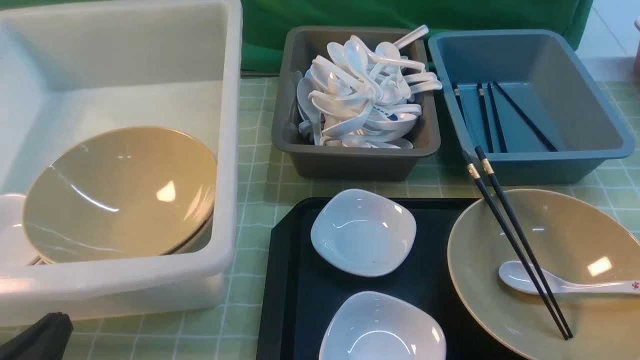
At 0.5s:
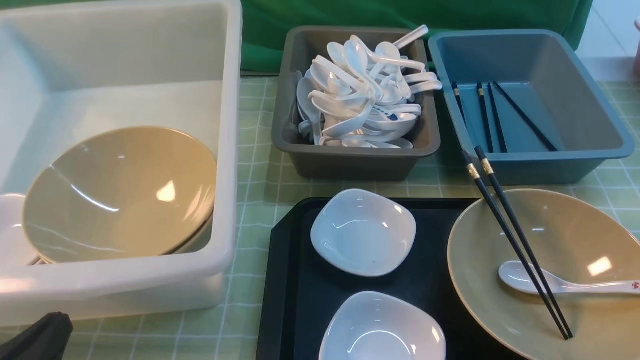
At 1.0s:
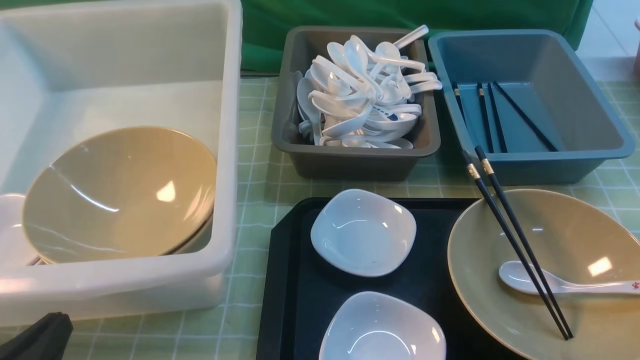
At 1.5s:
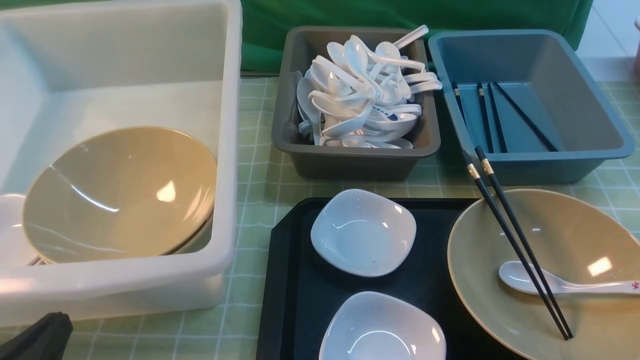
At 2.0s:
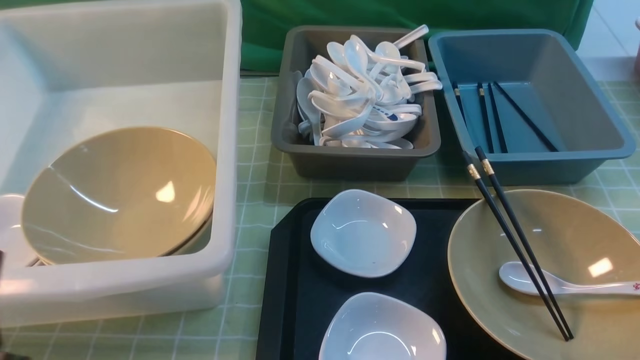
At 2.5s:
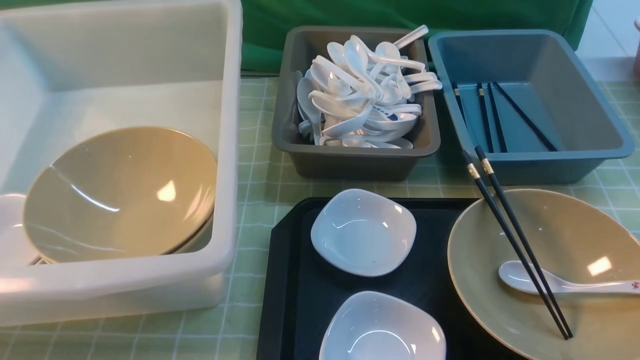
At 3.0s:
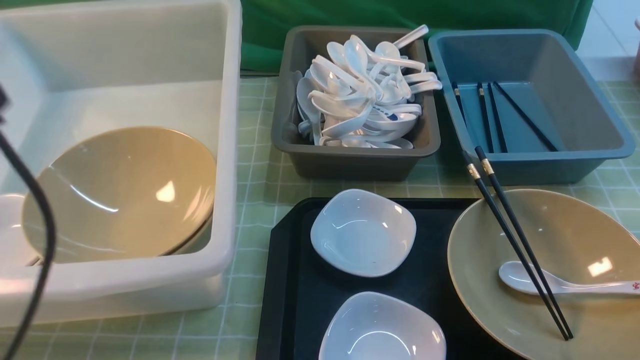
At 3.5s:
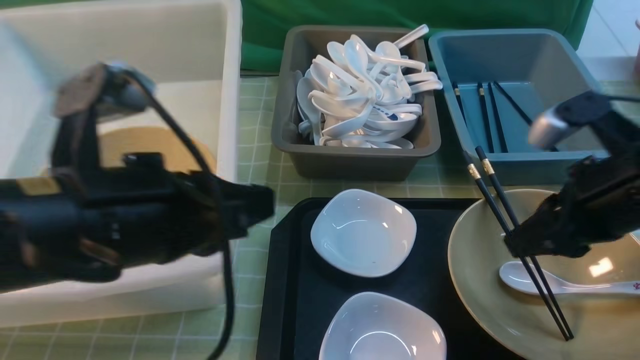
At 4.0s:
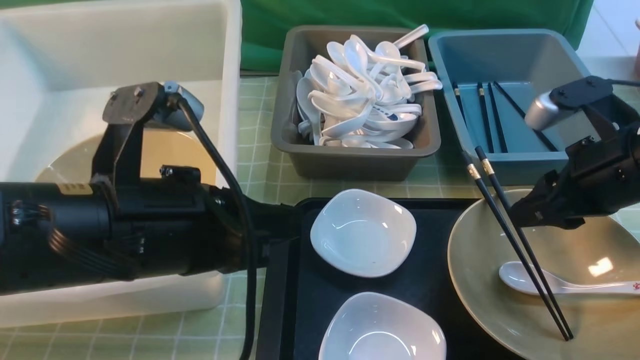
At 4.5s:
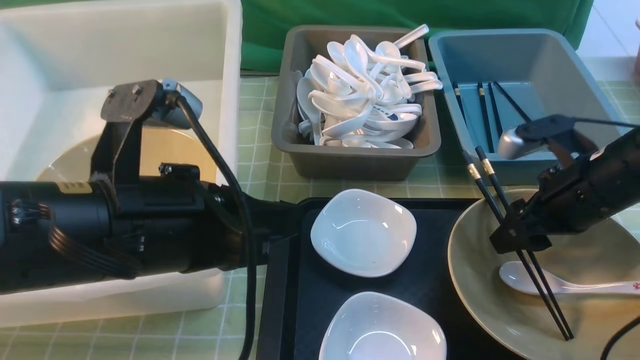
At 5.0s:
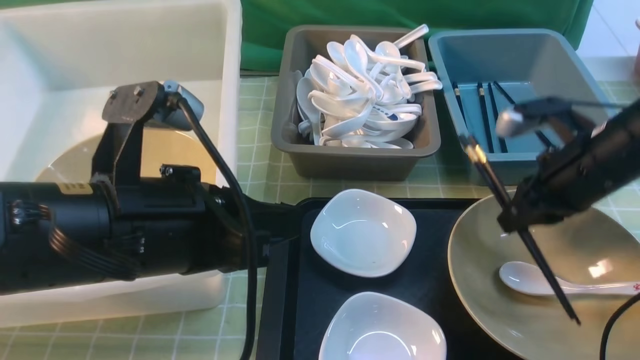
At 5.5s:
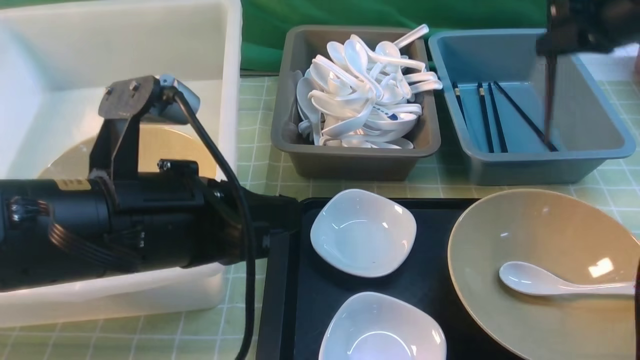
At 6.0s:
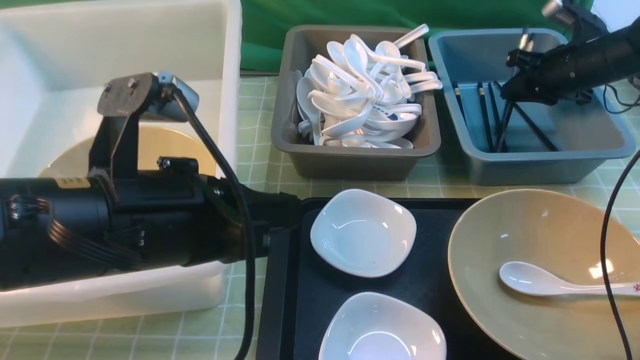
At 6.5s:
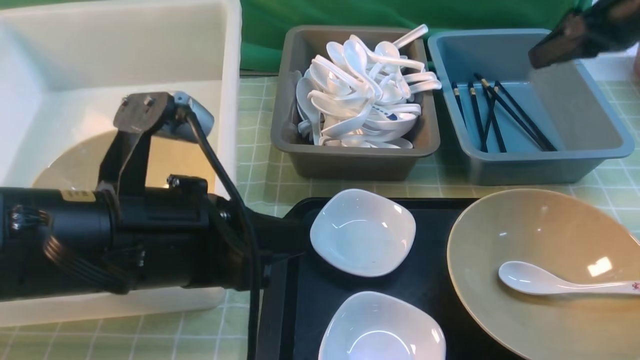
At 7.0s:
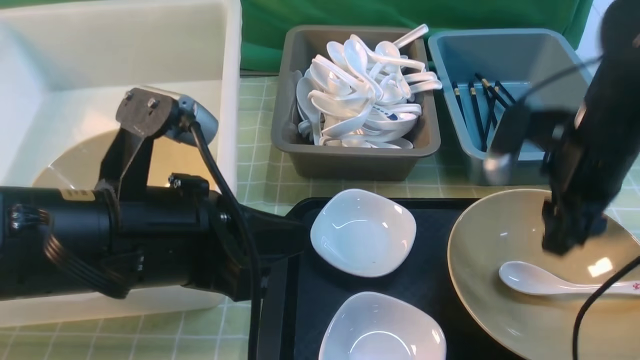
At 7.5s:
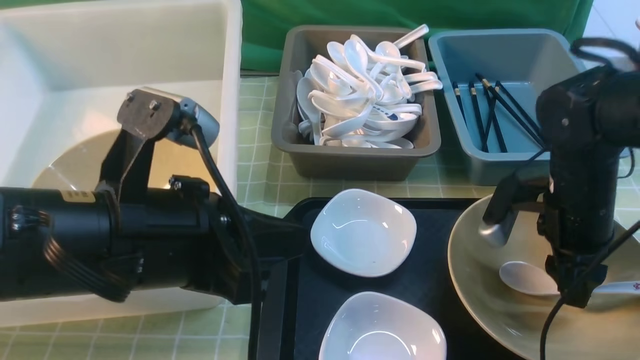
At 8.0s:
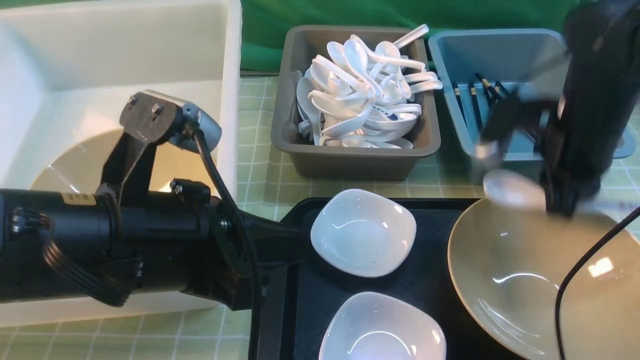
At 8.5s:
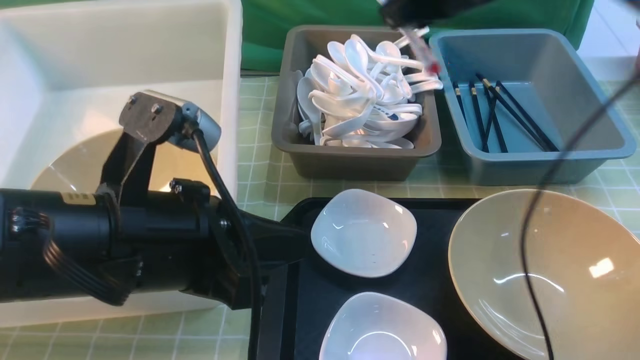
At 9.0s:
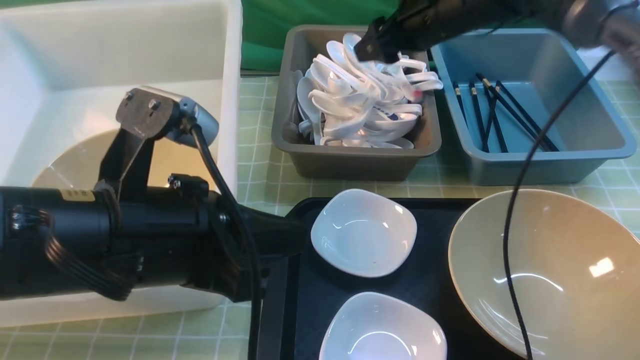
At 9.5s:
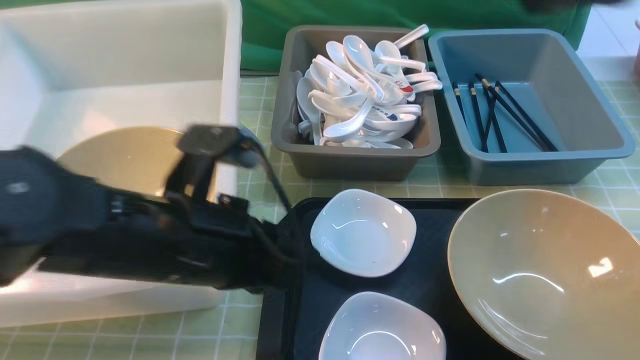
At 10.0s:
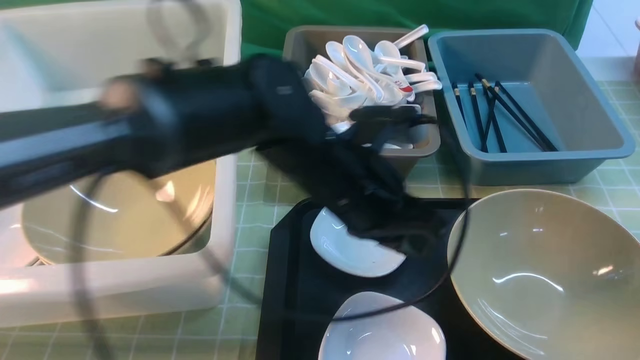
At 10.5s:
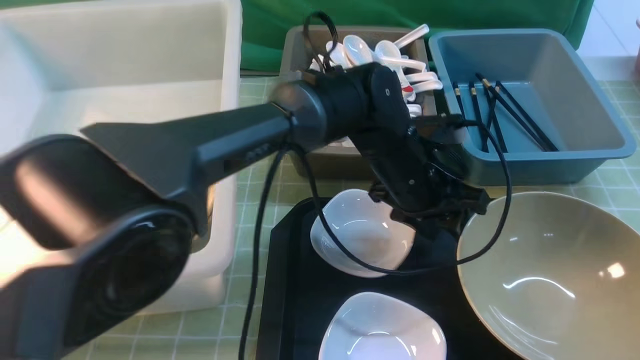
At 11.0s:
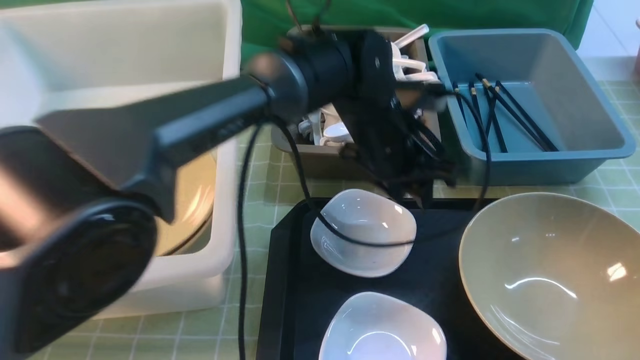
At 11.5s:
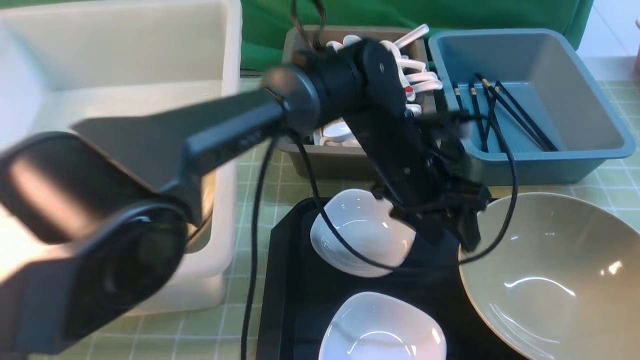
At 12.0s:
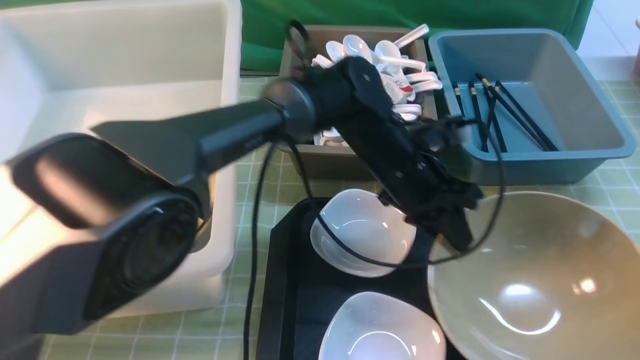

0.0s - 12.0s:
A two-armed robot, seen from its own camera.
Task of the whole recording: on green table put chopsticks spoon bowls plates into blue grey white boxes.
Step, 0.0s - 5.0s: use the right arm to grab the chopsticks.
Step, 5.5s - 6.5s: use the right arm to put the chopsticks into the small storage box on the right.
Step, 7.0s - 7.5s: use the right arm to grab the soup spoon in the middle.
Step, 8.0s - 9.0s: use the right arm to put the soup spoon into the small storage box in the middle.
2.0s - 4.0s: The right gripper goes about 25 cm forward. The left gripper shifts roughly 20 cm to the right, forward and upward.
4.0s - 6.0s: The right gripper is displaced forward and to the right by roughly 25 cm.
6.0s - 8.0s: The right gripper heads backward and to the left, covering some 20 cm, and opens, then closes again.
8.0s - 10.0s: The right gripper is displaced backward by some 25 cm, and opens, then closes once more; the left gripper shifts roughly 20 cm to the right, forward and downward.
10.0s - 12.0s: The left gripper shifts about 10 cm forward.

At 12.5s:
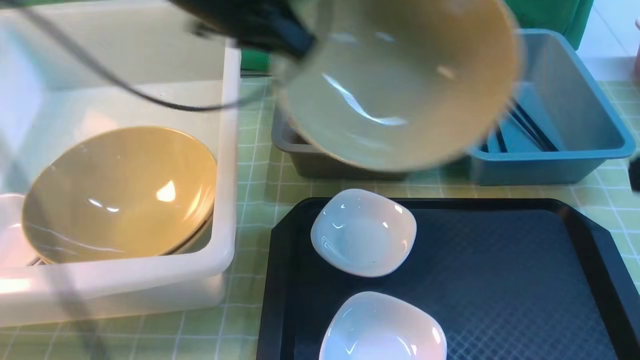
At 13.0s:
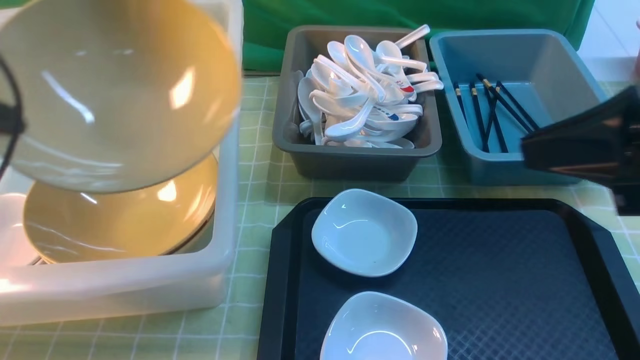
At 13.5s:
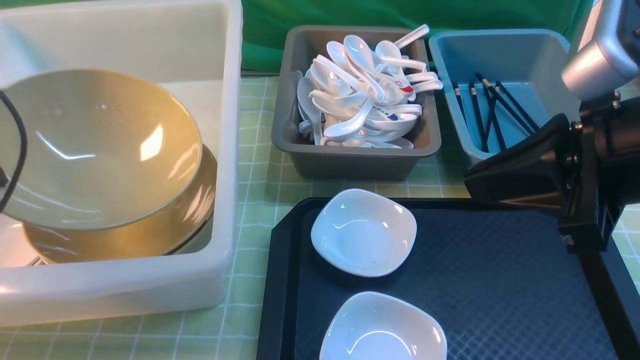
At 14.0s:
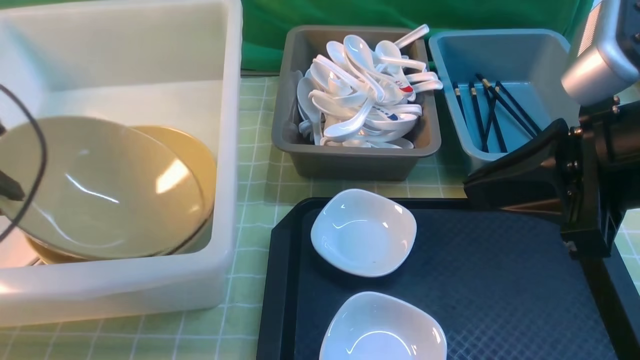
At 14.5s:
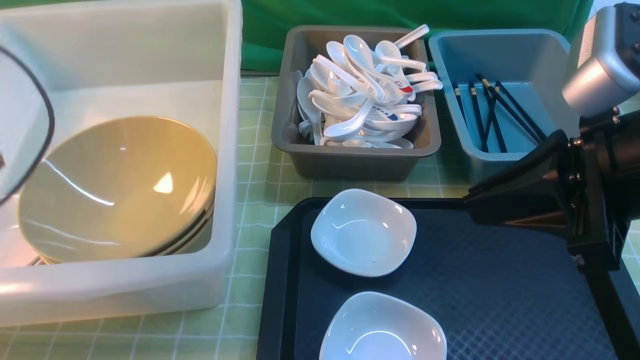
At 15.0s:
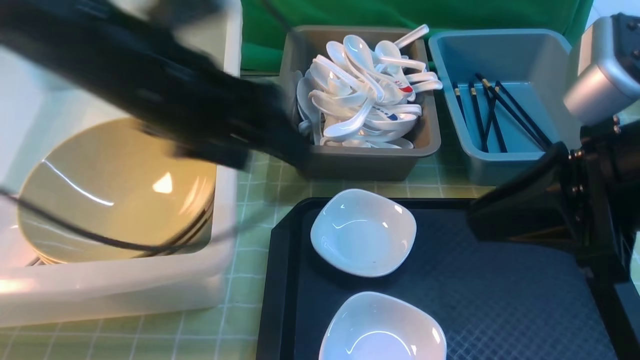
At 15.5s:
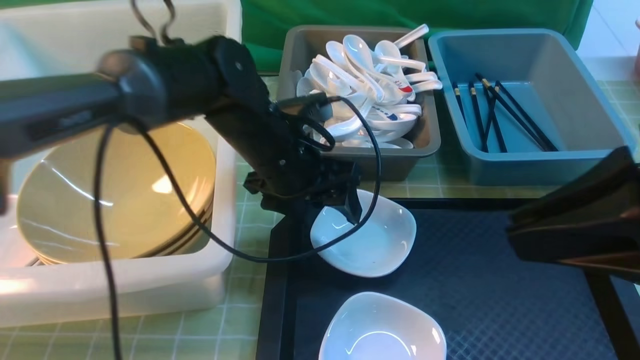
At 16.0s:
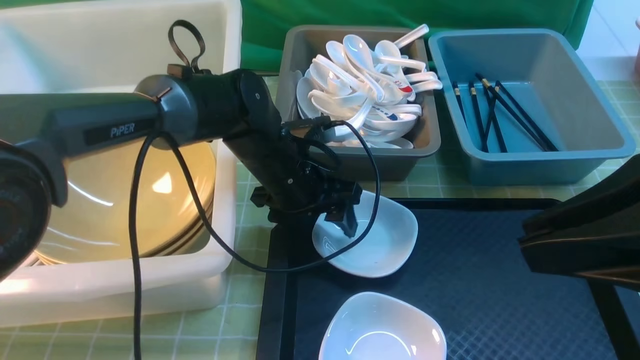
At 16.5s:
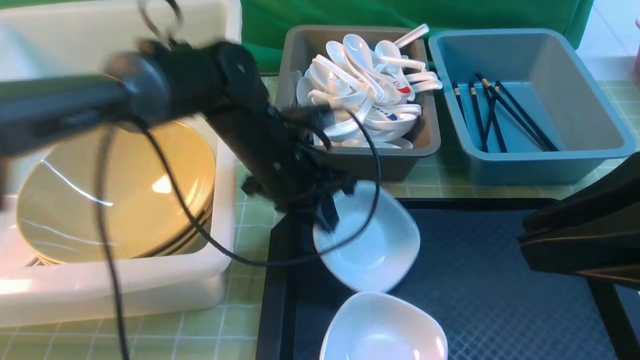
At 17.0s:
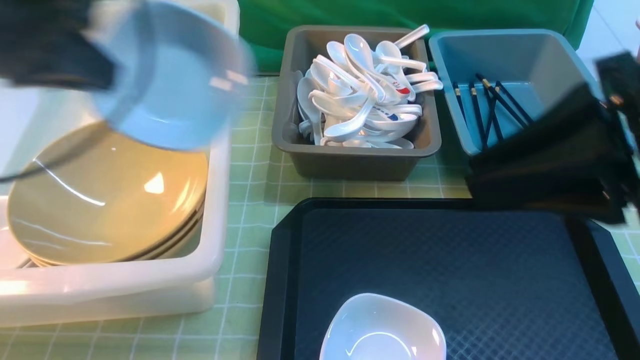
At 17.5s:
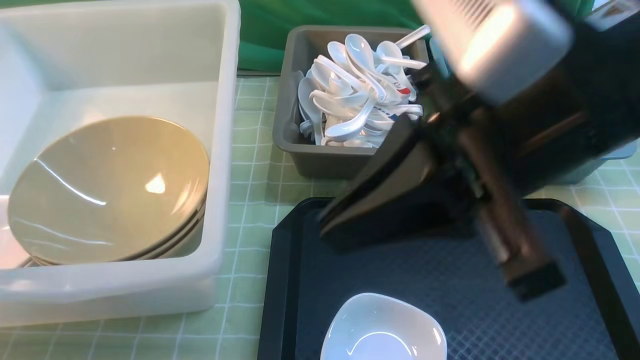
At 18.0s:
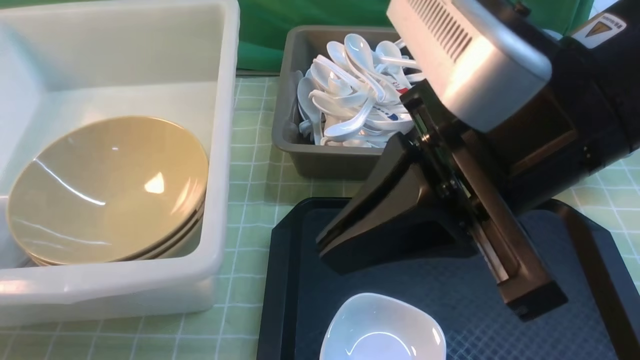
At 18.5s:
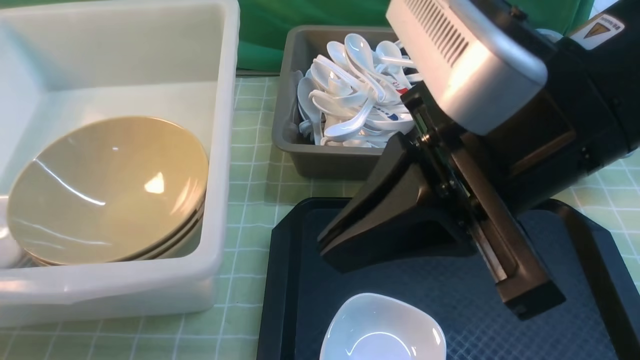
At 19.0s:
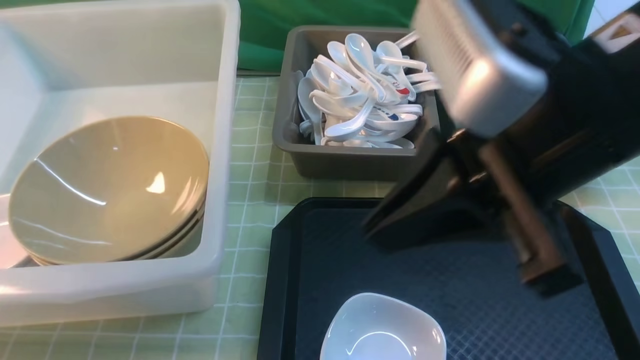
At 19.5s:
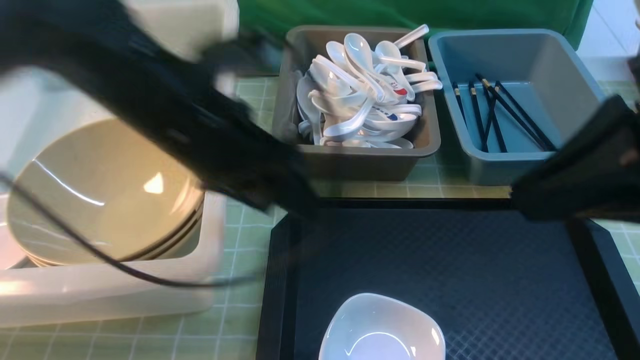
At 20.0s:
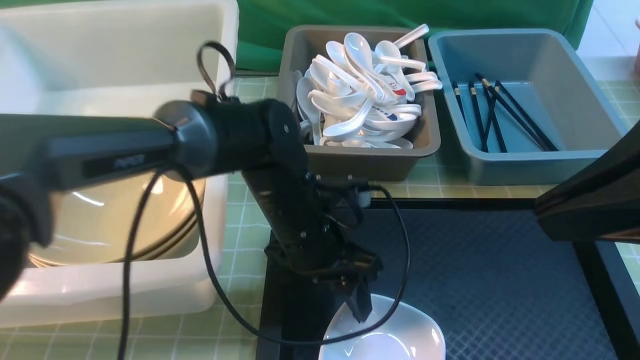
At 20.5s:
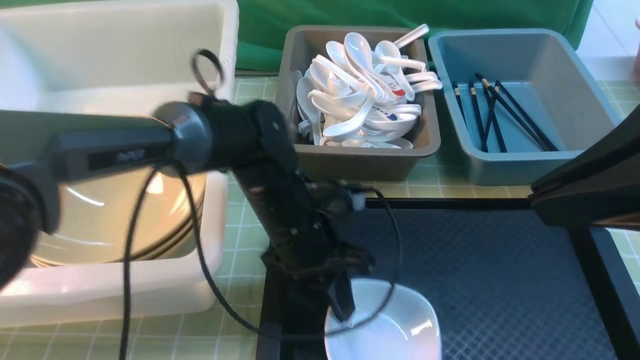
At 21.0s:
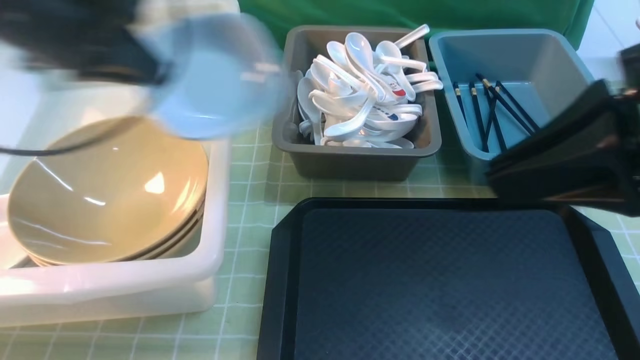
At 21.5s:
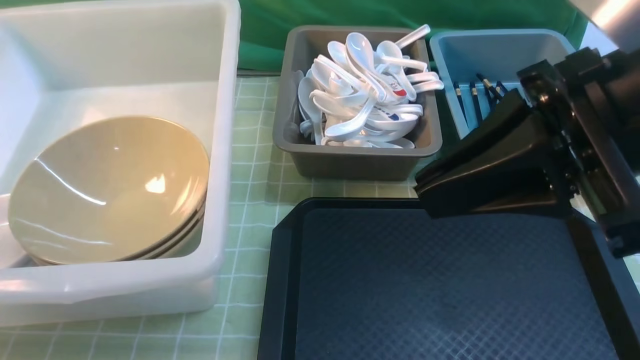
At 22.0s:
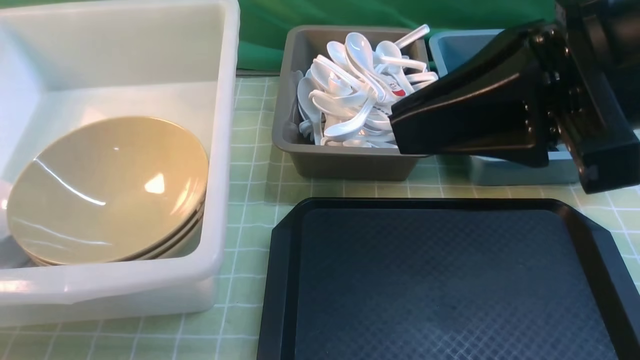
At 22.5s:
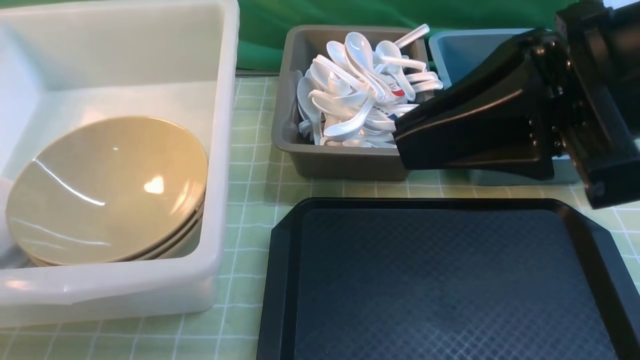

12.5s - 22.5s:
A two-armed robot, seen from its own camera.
Task of the whole recording: on green table put chopsticks spoon bowls plates into blue grey white boxes.
Step, 12.5s - 14.5s: use the left arm to put the noodle bowl into the large storage box on the left.
Step, 15.0s - 16.5s: use the left arm to grab the plate.
Step, 17.0s - 18.5s: use the left arm to put the plate into the large storage box on the left.
Step, 19.0s - 20.5s: use the left arm to grab the plate.
12.5s - 14.5s: The left gripper travels to the left and backward by some 20 cm, and opens up. The right gripper shifts about 10 cm forward and to the left.
14.5s - 16.5s: The left gripper goes about 25 cm to the right and downward, and closes. Meanwhile the right gripper moves backward, about 5 cm.
16.5s - 18.5s: The left gripper travels to the left by roughly 40 cm. Meanwhile the right gripper travels to the left by about 10 cm.
18.5s - 20.5s: The left gripper shifts approximately 40 cm to the right, and opens and closes again, while the right gripper goes some 10 cm to the right.
20.5s - 22.5s: The left gripper shifts some 40 cm to the left, and opens. The right gripper travels forward by roughly 5 cm.
